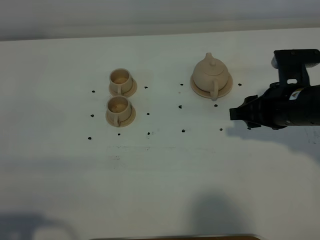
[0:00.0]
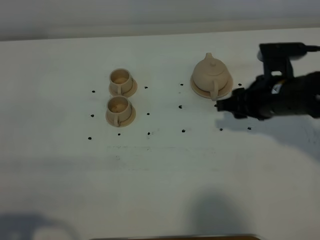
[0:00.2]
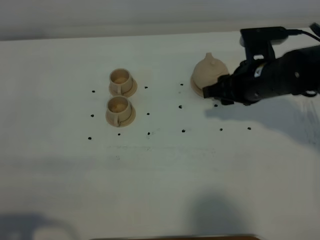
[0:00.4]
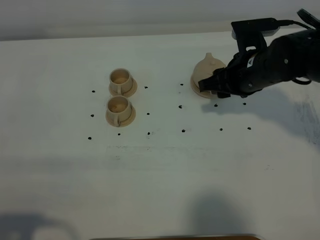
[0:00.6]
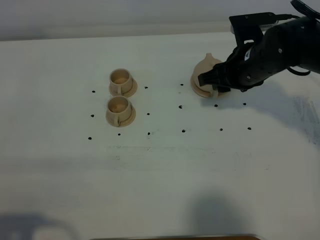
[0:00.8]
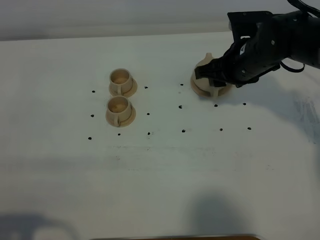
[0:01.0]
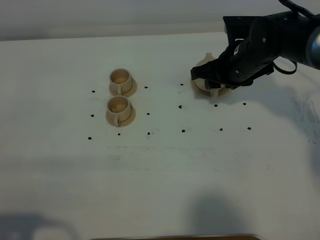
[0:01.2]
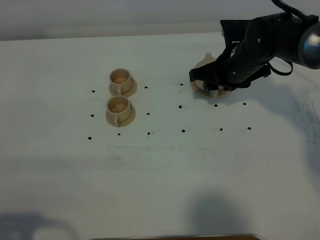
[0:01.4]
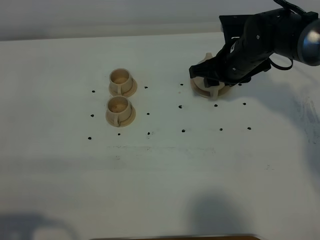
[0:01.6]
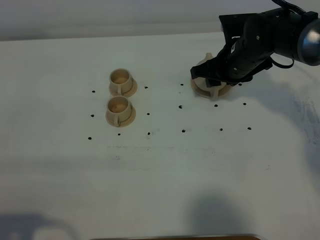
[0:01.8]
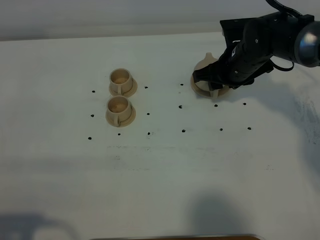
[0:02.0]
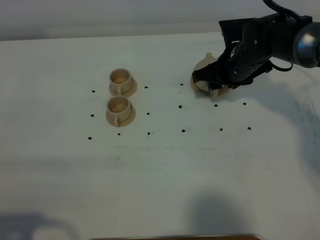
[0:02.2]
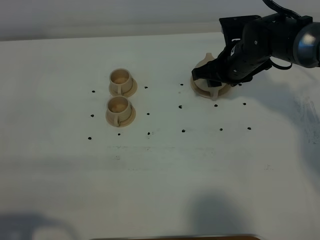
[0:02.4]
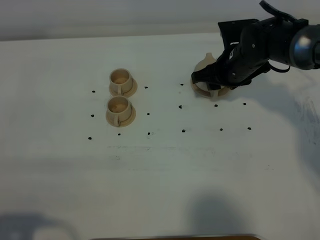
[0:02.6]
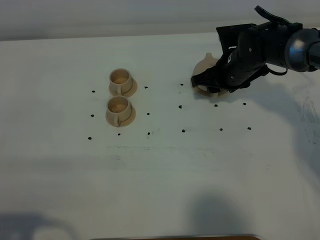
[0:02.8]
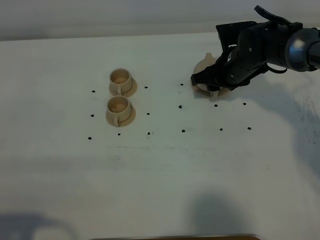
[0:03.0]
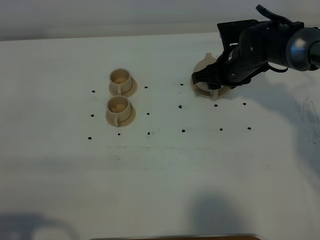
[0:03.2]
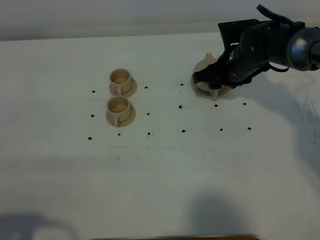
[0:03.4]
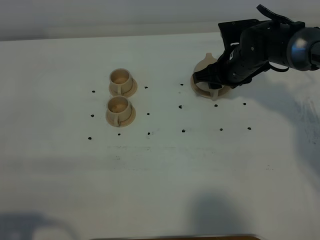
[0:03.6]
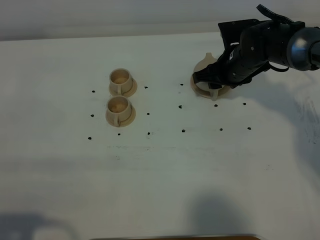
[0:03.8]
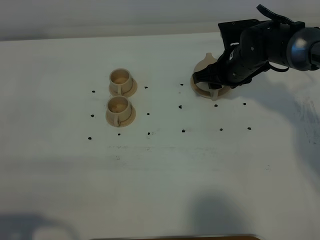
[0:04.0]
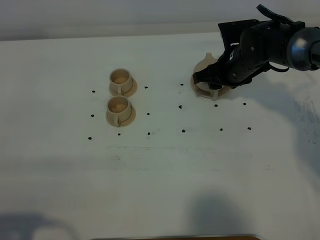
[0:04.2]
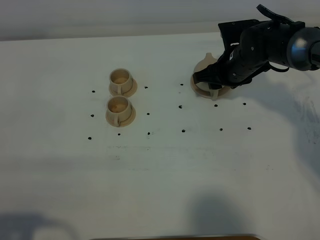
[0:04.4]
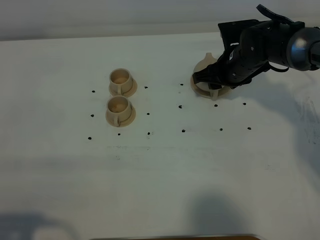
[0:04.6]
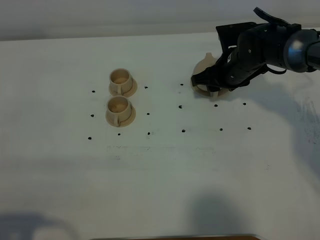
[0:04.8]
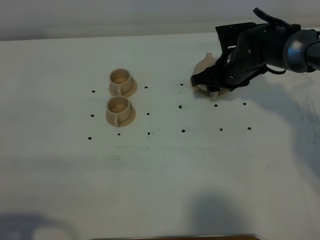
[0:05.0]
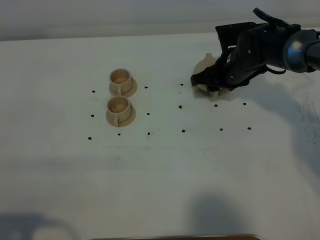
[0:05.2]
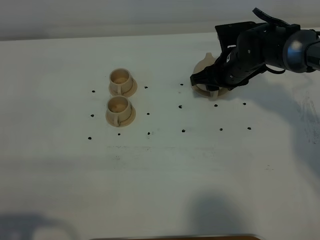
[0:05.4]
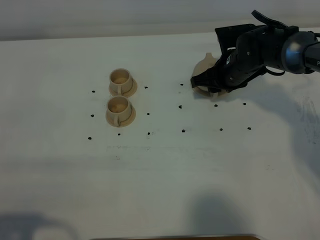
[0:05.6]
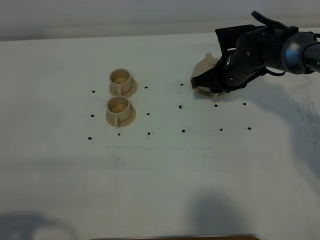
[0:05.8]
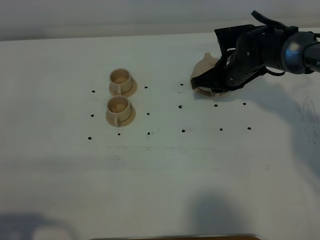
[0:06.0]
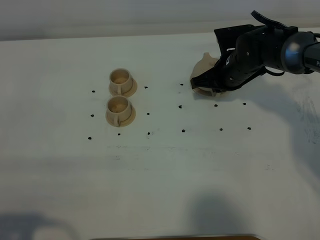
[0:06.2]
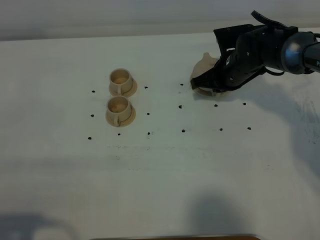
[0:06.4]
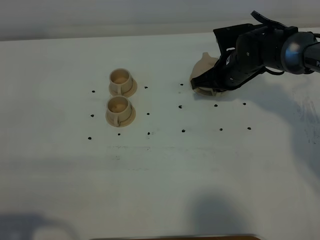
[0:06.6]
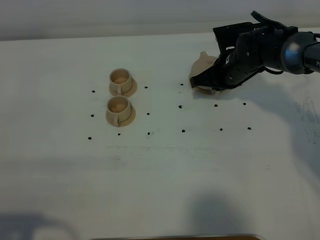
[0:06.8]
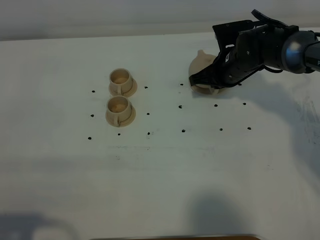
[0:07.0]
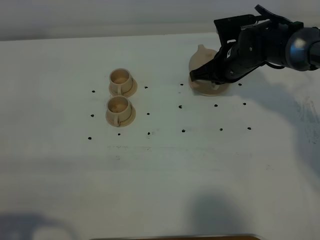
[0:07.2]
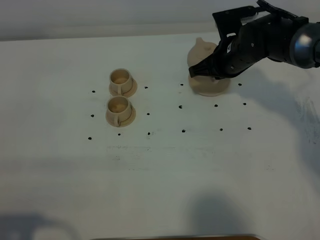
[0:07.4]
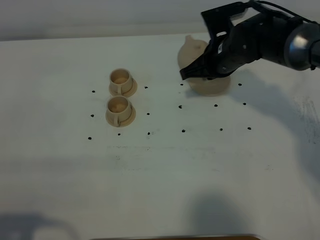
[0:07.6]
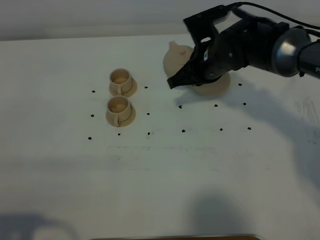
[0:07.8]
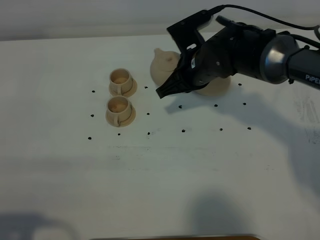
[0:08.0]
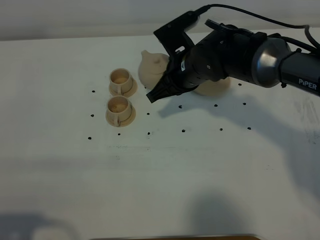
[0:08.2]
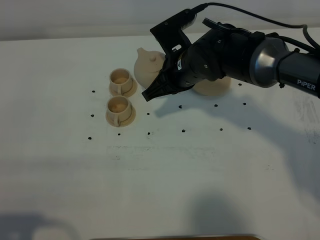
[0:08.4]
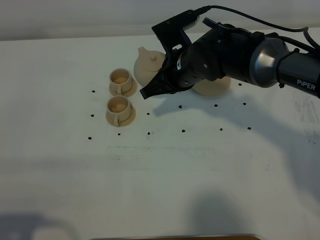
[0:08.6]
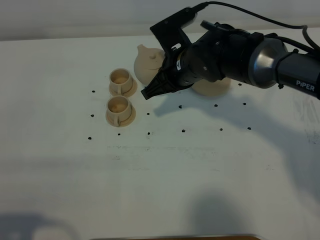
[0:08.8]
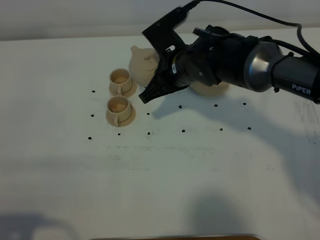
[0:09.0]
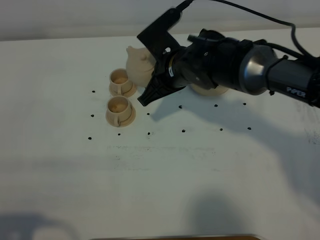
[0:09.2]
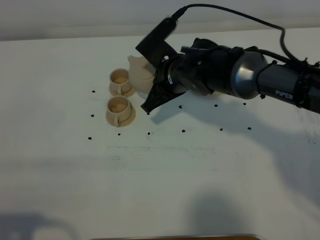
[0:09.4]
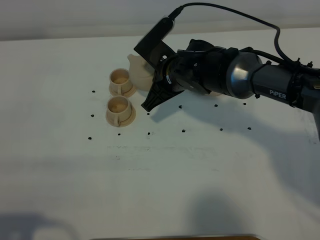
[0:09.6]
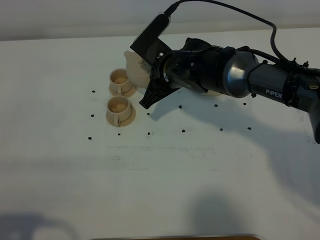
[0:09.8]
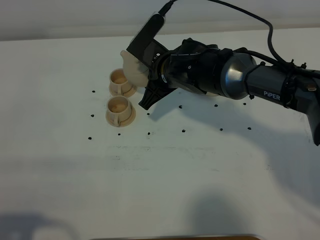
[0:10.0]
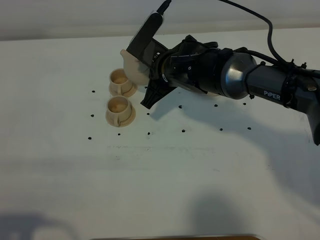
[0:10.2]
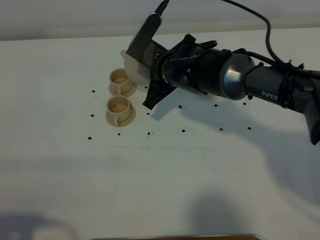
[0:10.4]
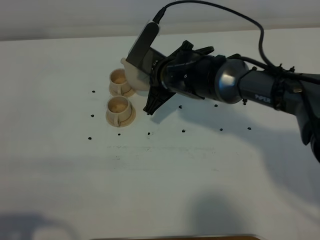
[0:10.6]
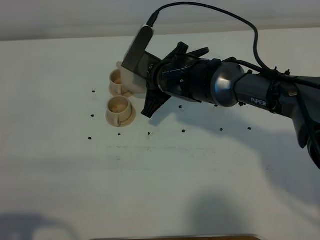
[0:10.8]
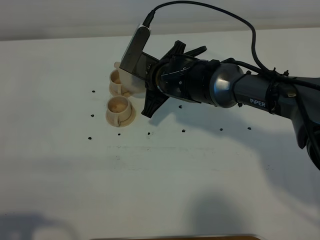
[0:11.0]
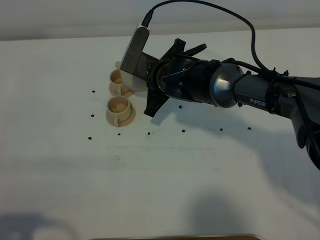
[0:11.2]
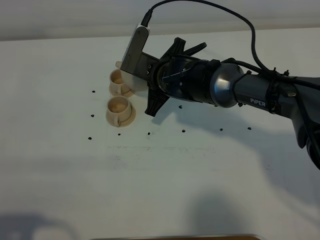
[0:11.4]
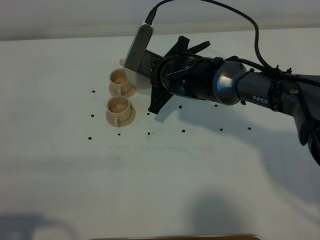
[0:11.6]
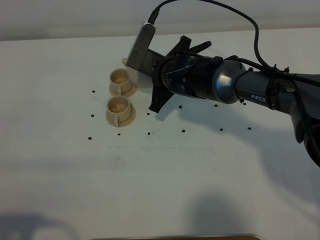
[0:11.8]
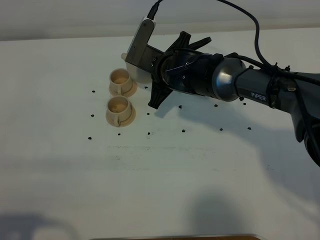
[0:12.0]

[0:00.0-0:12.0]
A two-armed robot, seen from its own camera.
Task of the whole recording: grasp the brown teapot and pour the tea into the two brown teacups one by one, put the brown teapot back in its original place.
Step, 0:00.0 to 0:07.2: Pick up the teapot with the right gripper.
0:00.0 to 0:01.6: The right gripper travels forward and to the left by some 15 cm.
0:01.6 to 0:03.0: The grippers make only small movements.
0:03.0 to 0:04.4: Both grippers stay put.
0:04.4 to 0:06.0: The right gripper closes up.
0:06.0 to 0:07.6: The right gripper travels upward by roughly 5 cm.
0:07.6 to 0:09.0: The right gripper travels to the left by approximately 10 cm.
0:10.4 to 0:12.0: There are only small adjustments of the grippers.

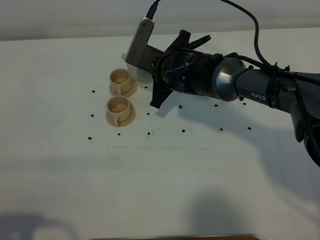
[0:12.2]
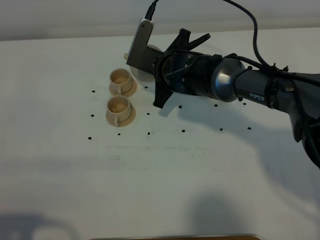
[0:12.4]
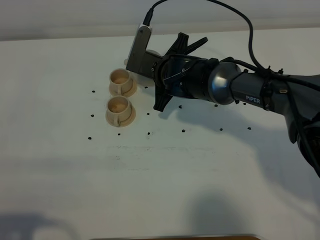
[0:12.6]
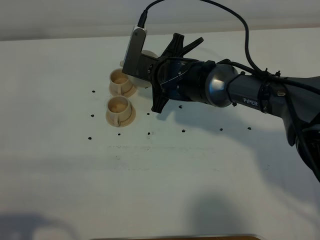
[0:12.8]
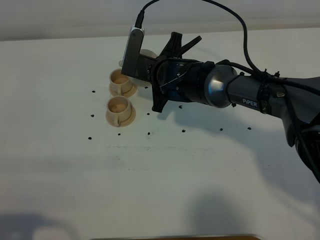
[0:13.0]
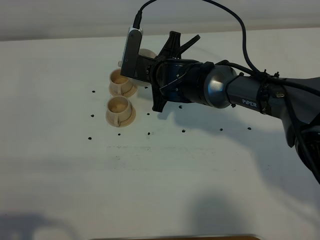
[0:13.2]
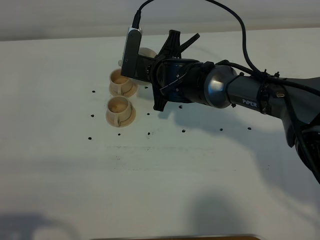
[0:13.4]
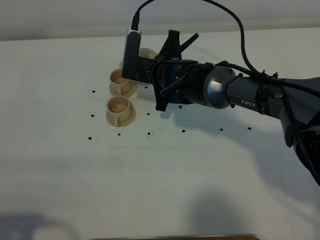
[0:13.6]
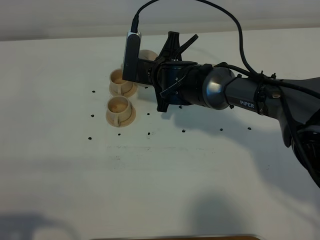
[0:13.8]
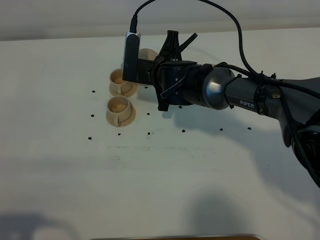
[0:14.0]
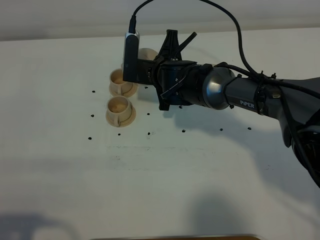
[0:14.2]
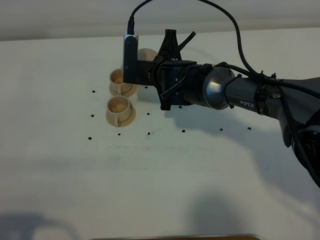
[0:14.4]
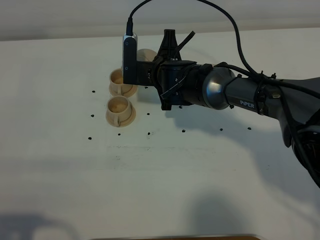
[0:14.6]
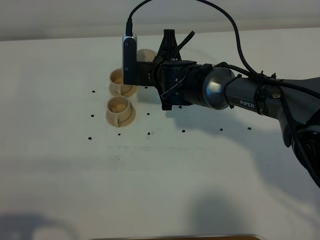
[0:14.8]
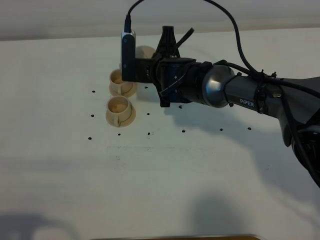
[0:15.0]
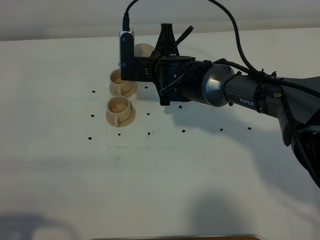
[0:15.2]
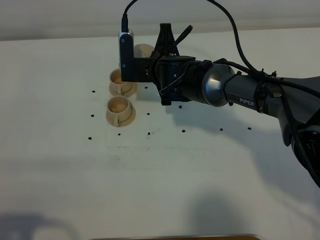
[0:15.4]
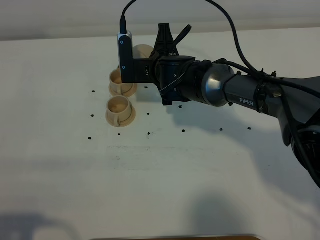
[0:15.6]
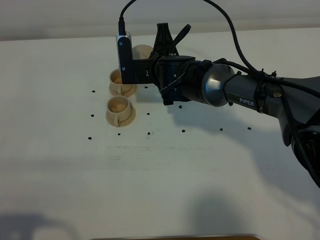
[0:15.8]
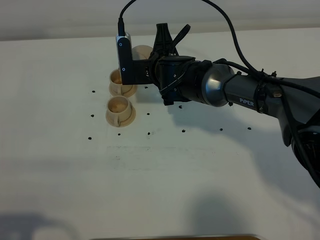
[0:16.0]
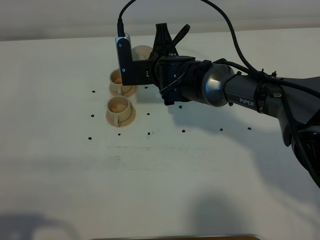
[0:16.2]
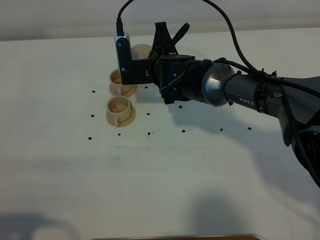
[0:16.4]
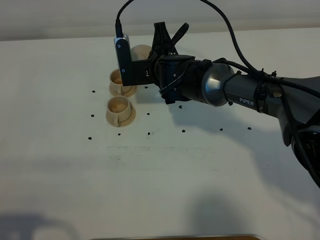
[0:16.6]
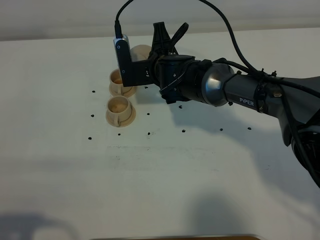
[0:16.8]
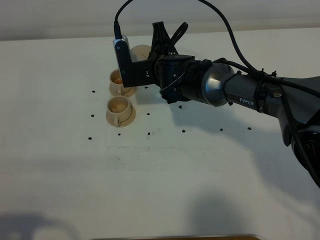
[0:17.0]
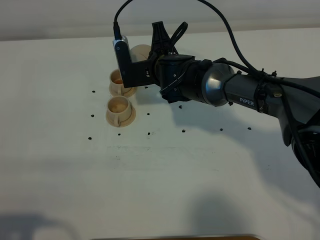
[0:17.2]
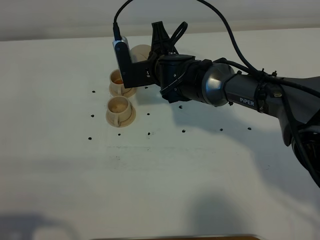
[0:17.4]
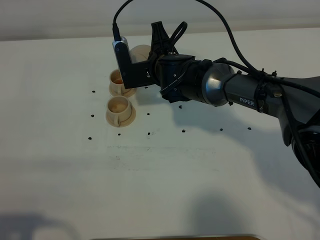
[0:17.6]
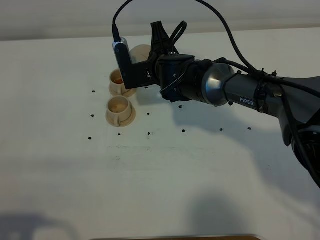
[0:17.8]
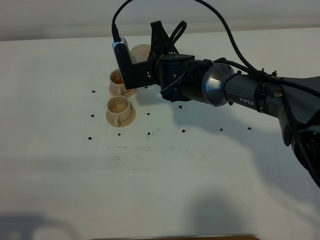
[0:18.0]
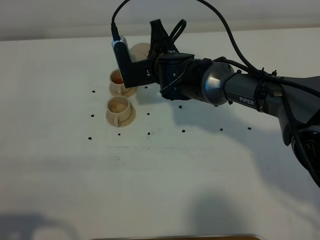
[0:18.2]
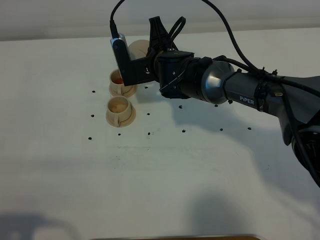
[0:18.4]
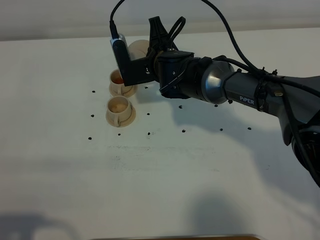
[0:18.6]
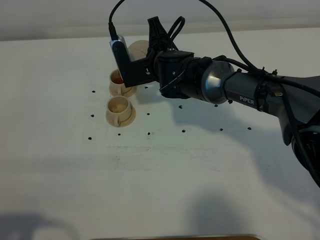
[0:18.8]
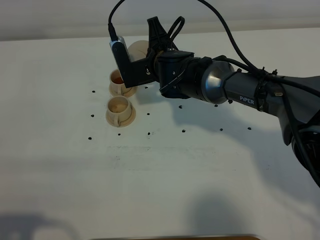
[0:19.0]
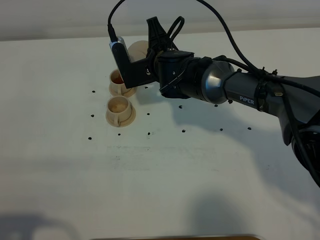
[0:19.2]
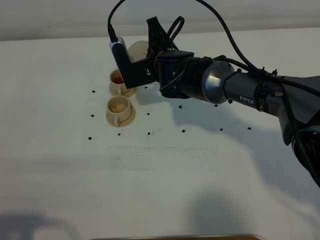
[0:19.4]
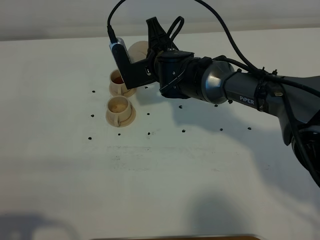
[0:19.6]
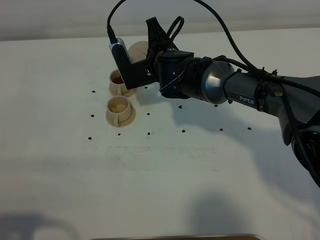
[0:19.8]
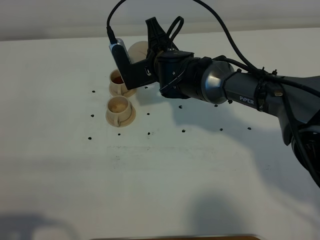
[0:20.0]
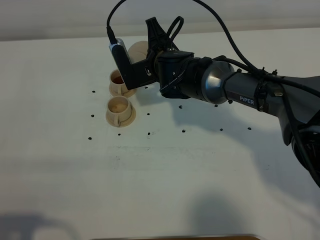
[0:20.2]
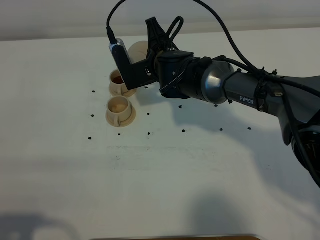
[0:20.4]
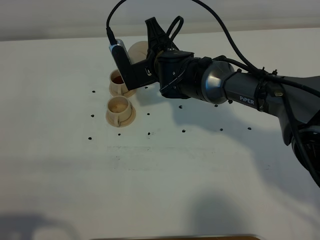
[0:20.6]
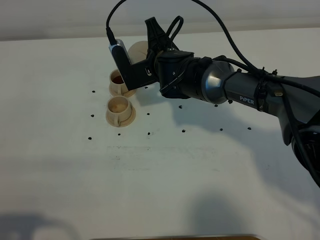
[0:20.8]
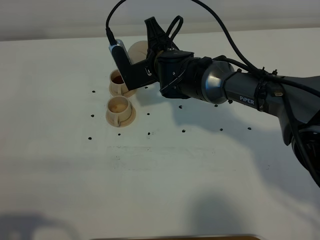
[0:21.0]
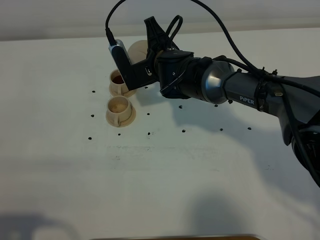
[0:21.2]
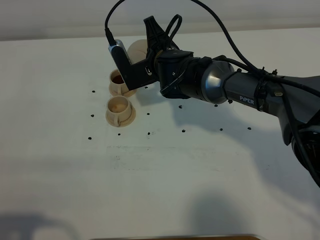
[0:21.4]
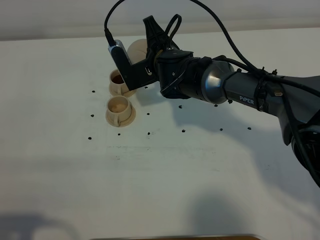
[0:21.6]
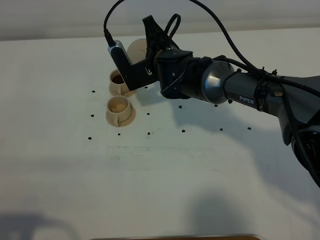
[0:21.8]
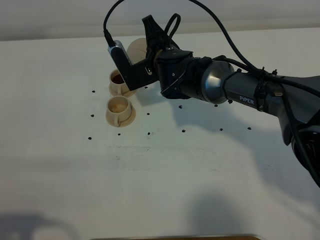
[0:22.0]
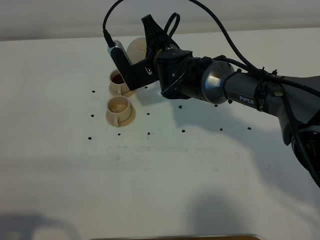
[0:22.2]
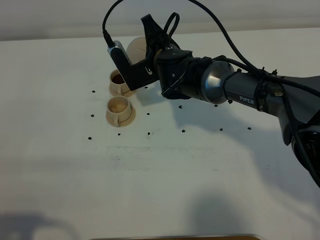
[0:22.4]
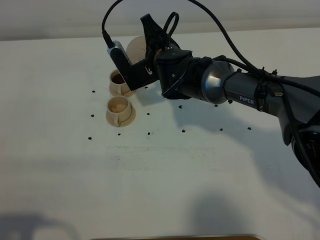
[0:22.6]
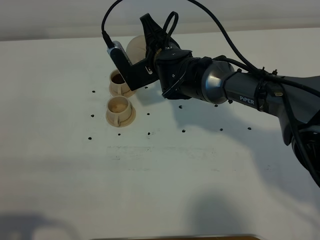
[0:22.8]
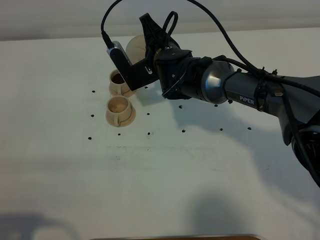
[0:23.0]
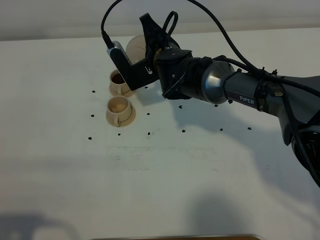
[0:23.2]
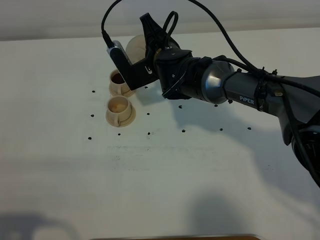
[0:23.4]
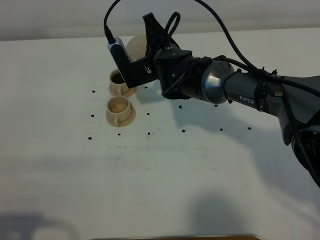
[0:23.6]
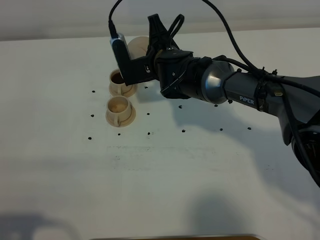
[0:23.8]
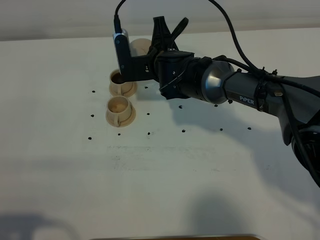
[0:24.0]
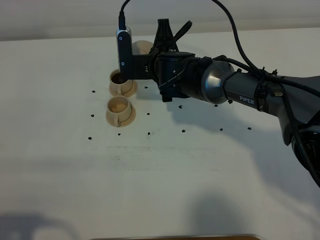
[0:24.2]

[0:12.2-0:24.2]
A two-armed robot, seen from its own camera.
Task of the whole recording: grasp the brown teapot and pour the tea into the two brown teacups one by one, put the brown teapot back in its original place.
0:12.2 to 0:13.8: There are only small adjustments of the grippers.
0:13.8 to 0:16.6: The grippers stay close to where they were, moving slightly.
0:16.6 to 0:19.8: The grippers stay close to where they were, moving slightly.
0:19.8 to 0:21.2: Both grippers stay put.
0:21.2 to 0:22.6: There are only small adjustments of the grippers.
